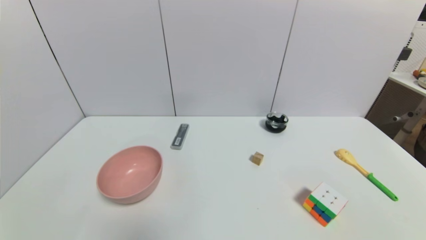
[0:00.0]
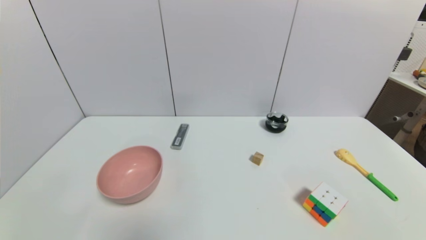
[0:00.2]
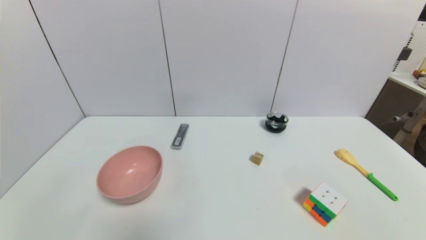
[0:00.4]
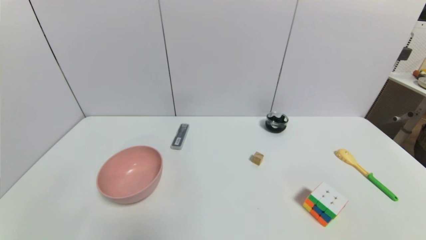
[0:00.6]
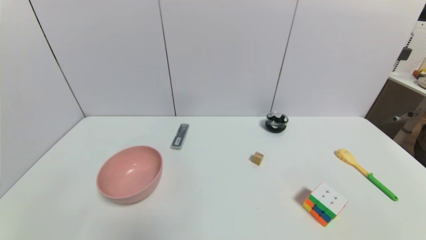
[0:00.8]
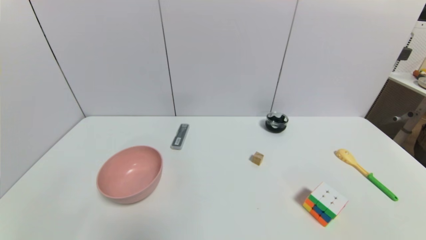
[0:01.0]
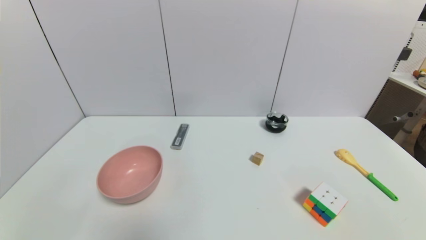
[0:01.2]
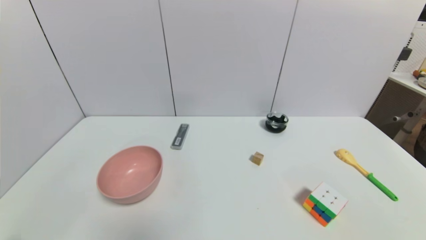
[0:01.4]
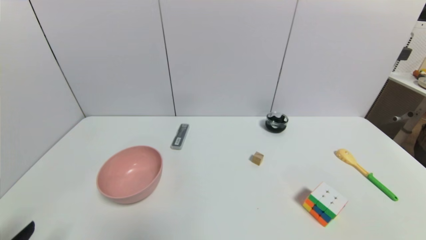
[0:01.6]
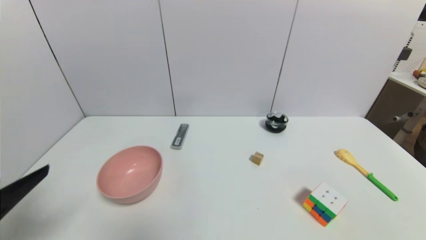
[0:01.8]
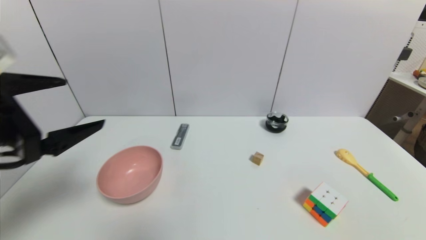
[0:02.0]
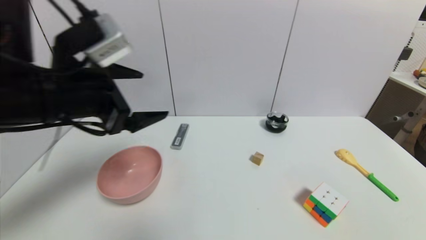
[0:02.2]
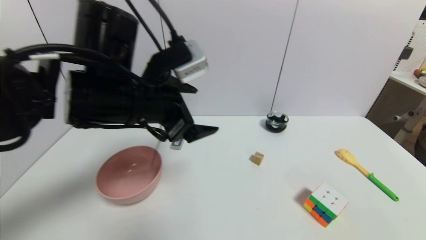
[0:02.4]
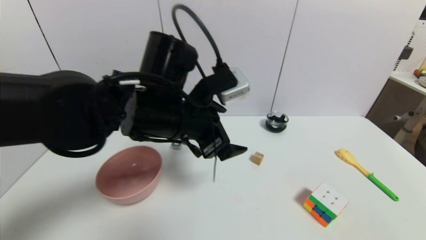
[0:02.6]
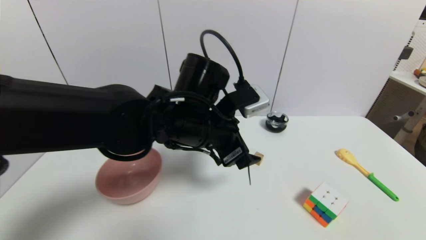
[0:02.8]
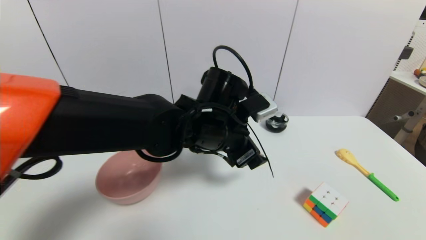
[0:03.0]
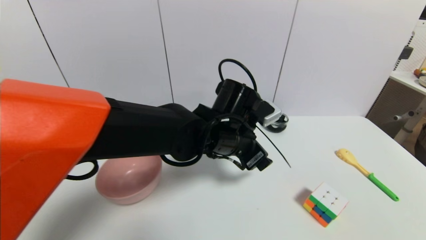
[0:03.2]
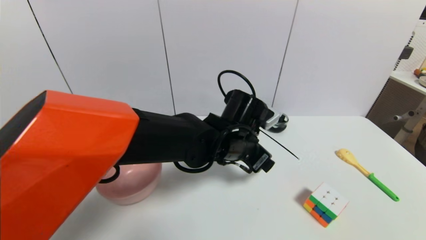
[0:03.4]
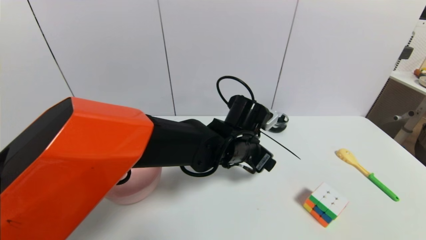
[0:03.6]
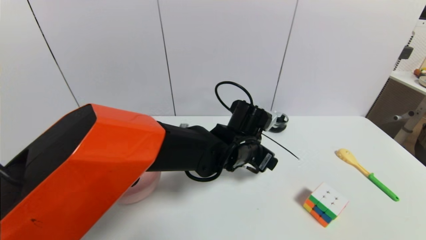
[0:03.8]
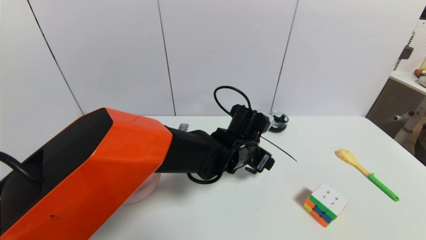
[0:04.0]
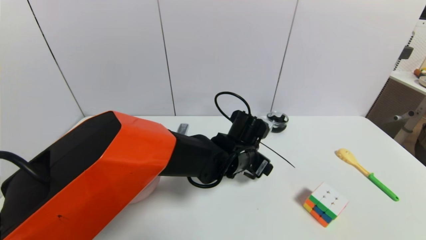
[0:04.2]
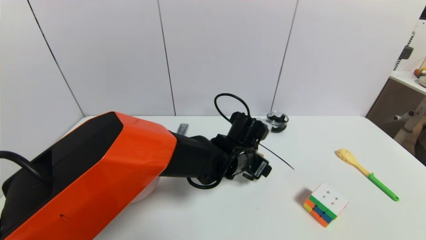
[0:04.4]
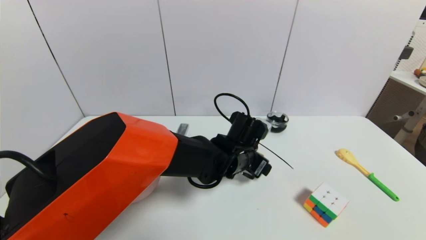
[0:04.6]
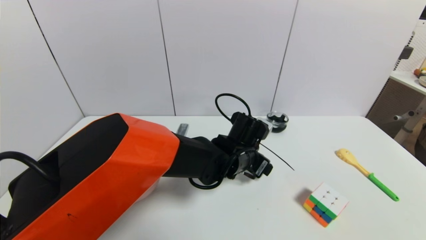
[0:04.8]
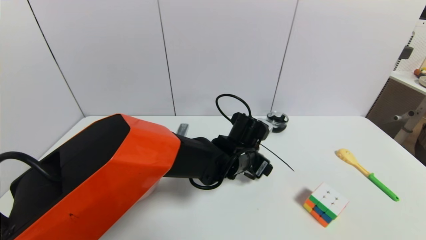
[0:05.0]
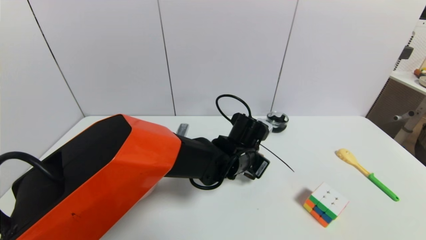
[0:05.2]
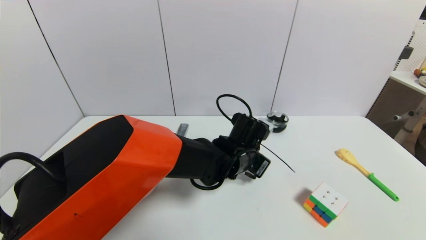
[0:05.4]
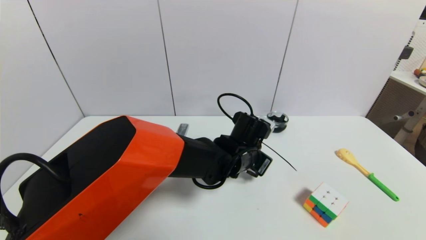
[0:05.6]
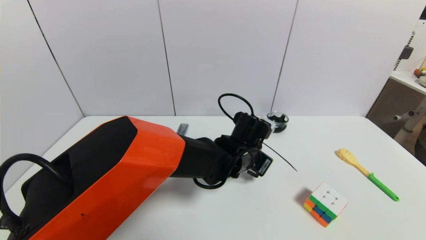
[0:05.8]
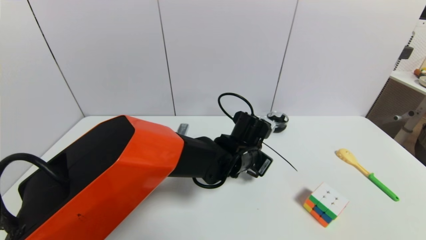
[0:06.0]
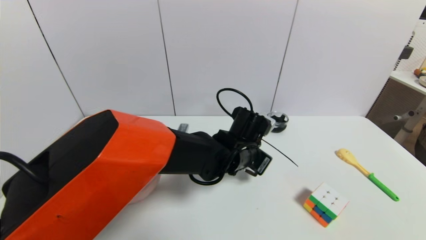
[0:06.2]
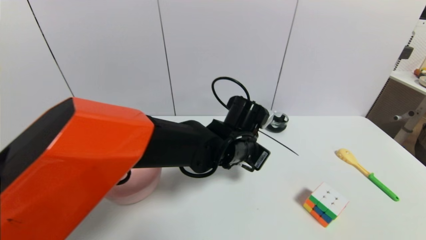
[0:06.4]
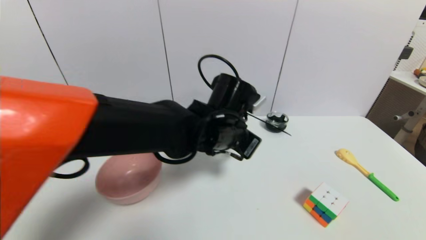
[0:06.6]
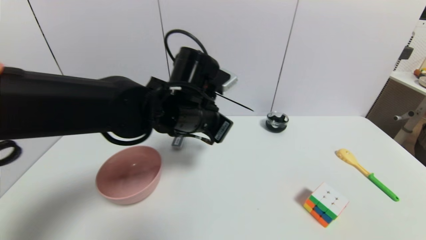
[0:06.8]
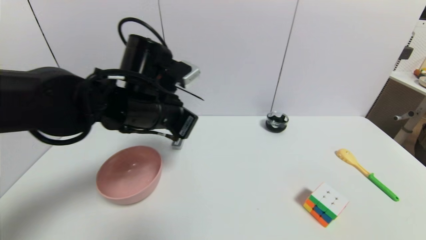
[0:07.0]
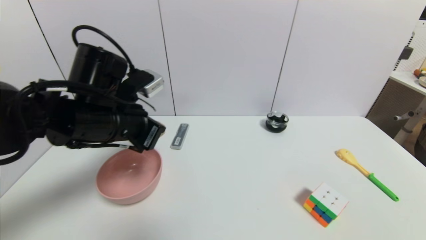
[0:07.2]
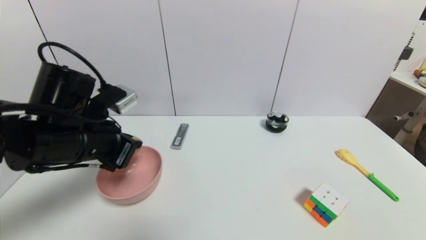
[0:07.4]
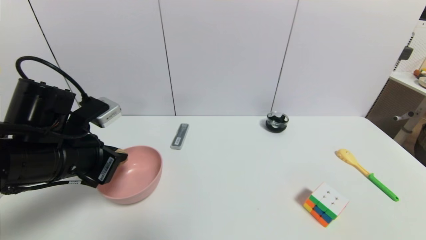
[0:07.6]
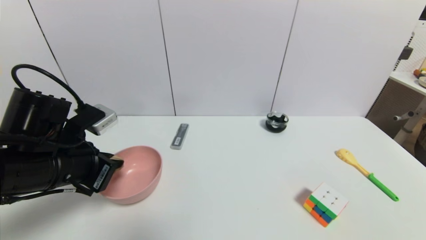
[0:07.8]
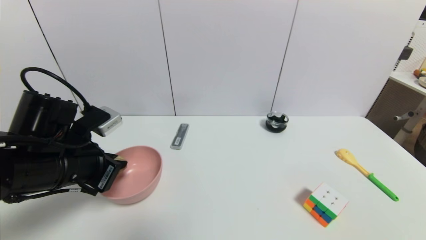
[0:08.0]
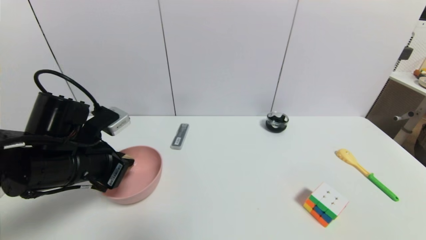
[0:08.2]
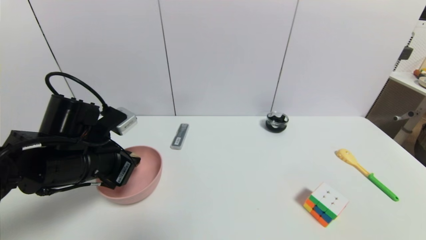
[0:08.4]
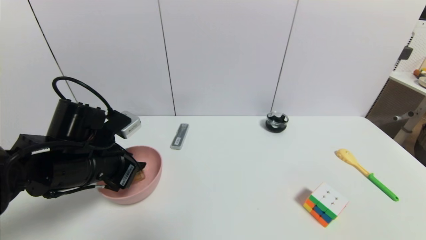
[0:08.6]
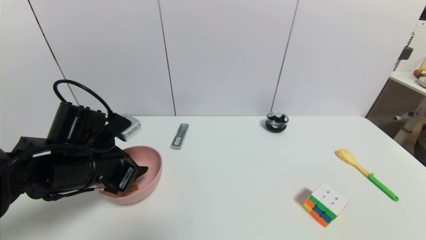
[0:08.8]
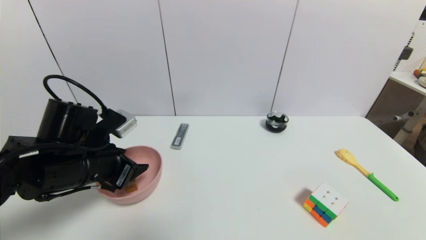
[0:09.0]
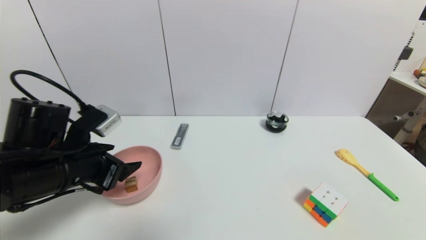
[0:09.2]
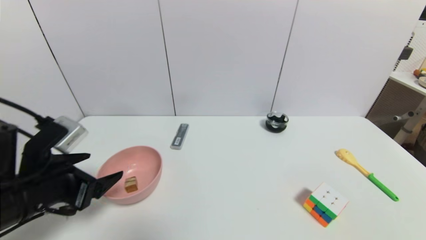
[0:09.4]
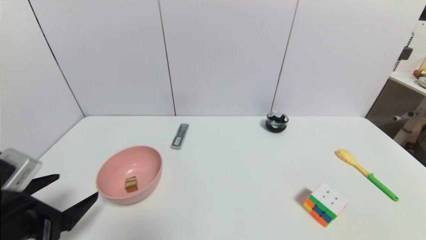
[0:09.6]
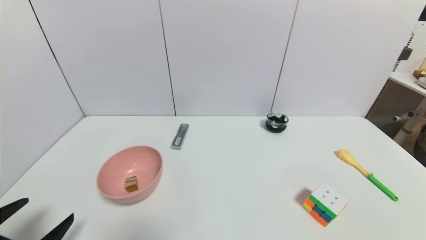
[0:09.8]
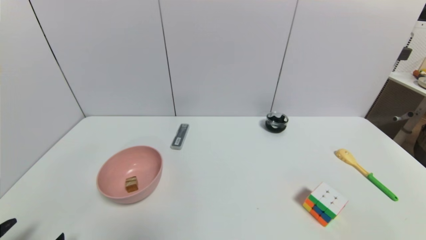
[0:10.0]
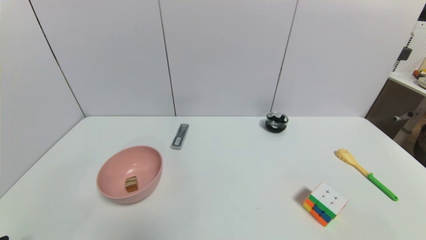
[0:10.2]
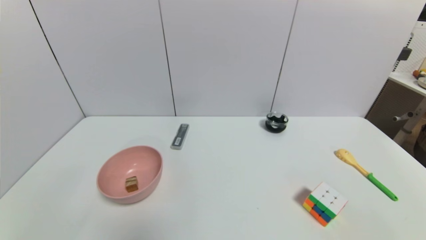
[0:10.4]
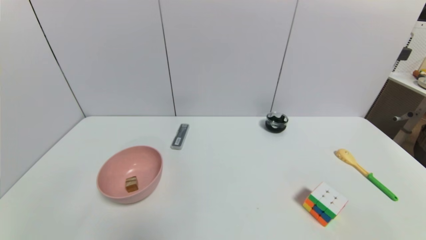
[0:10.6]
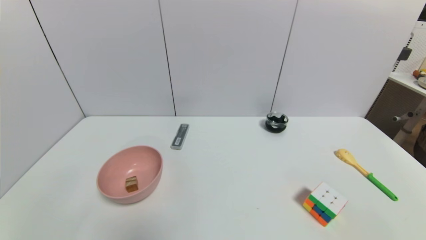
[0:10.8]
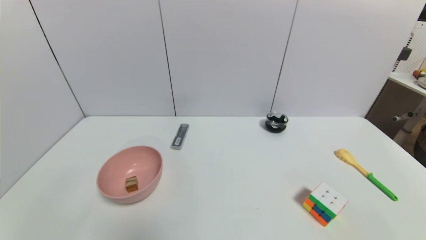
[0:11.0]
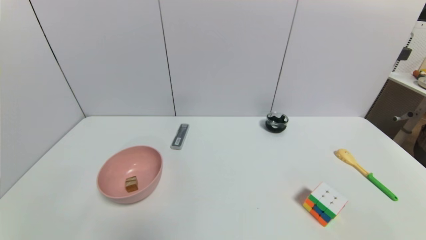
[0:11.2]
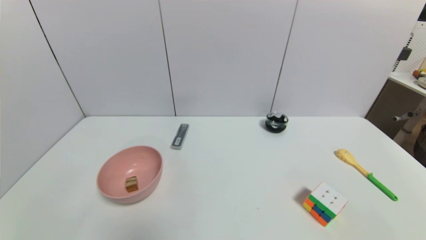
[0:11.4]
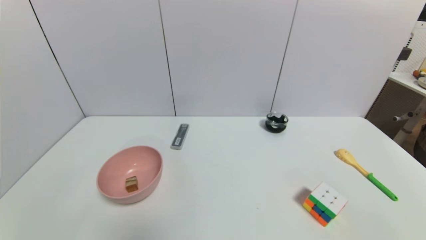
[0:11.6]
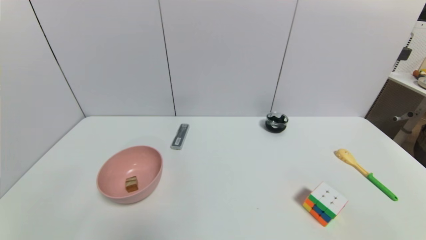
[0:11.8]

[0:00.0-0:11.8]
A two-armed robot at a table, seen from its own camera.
Task of the whole recording: use a gripper to pick the target object and place on the pink bowl.
Step, 0:00.0 to 0:05.6: Grasp the square wooden block with the left gripper.
Step, 0:05.8 to 0:09.0: Place the square wooden block on the pink bowl with the left gripper.
0:01.4 to 0:03.0: The left gripper goes about 40 cm to the right and forward.
0:03.0 to 0:04.4: The left gripper goes about 10 cm downward and to the right.
0:04.4 to 0:06.0: The left gripper closes its fingers.
0:06.0 to 0:07.4: The left gripper goes roughly 30 cm to the left and upward.
0:07.4 to 0:08.8: The left gripper heads downward, covering roughly 5 cm, and opens.
0:08.8 to 0:10.4: The left gripper moves backward and downward, some 25 cm, and opens its fingers.
